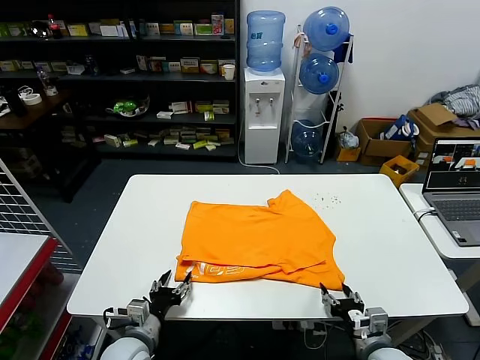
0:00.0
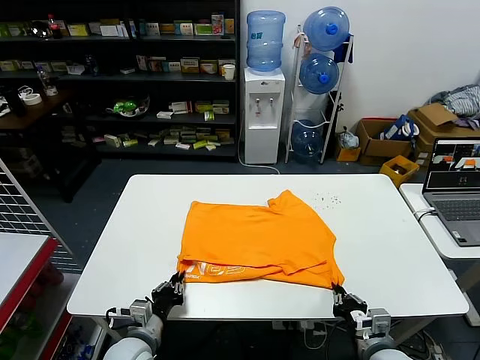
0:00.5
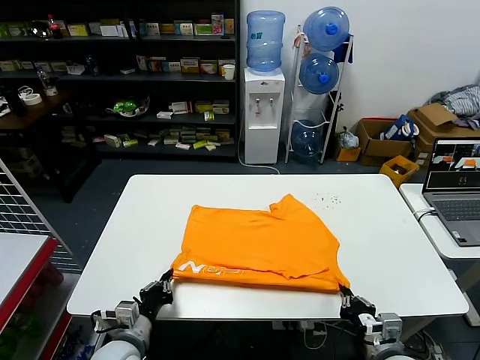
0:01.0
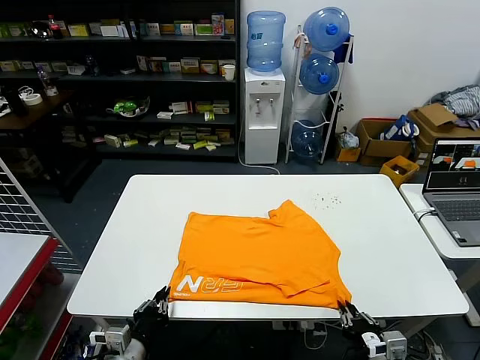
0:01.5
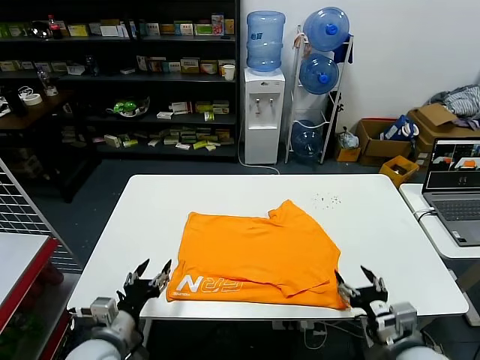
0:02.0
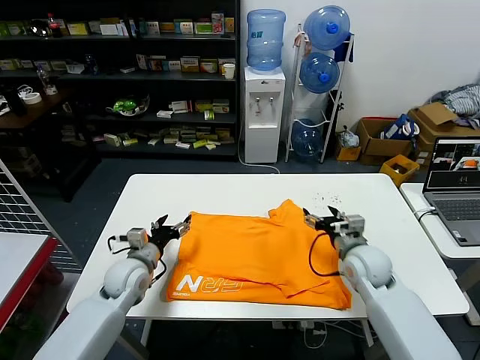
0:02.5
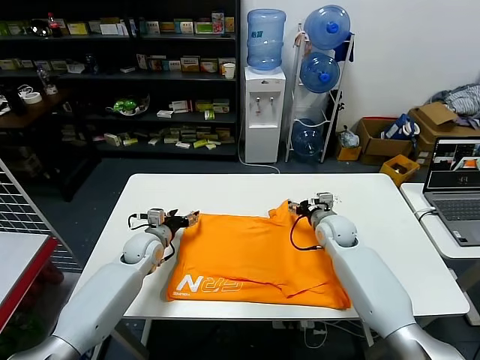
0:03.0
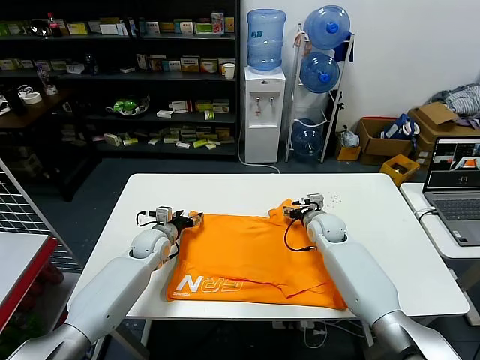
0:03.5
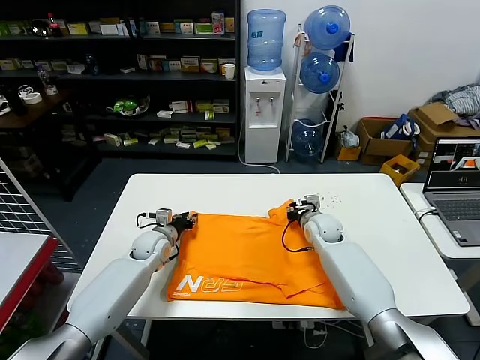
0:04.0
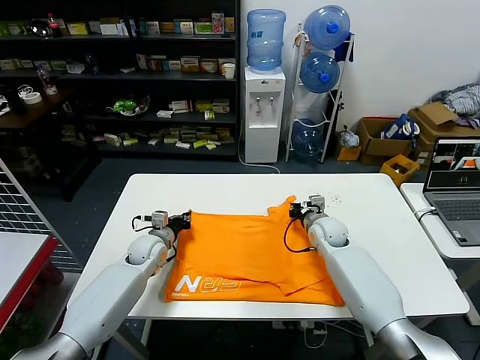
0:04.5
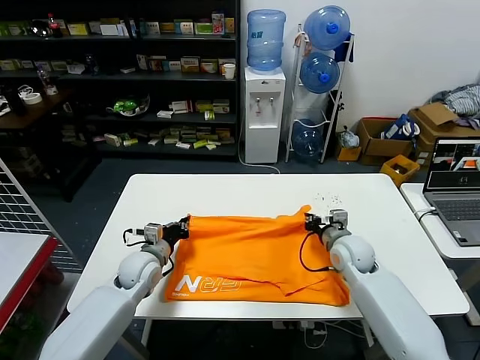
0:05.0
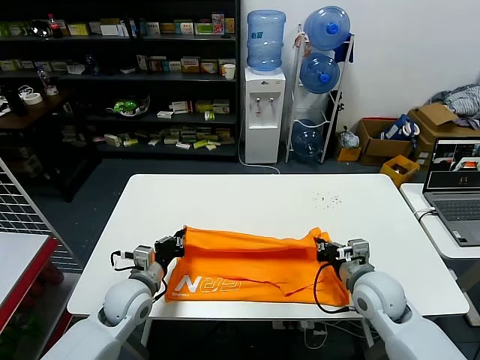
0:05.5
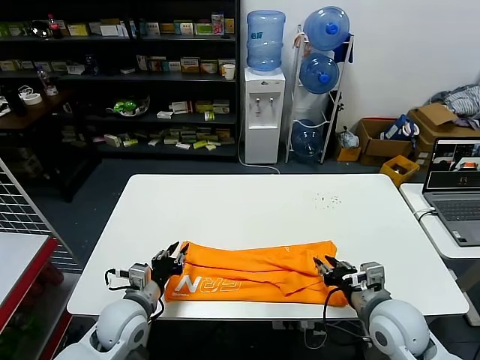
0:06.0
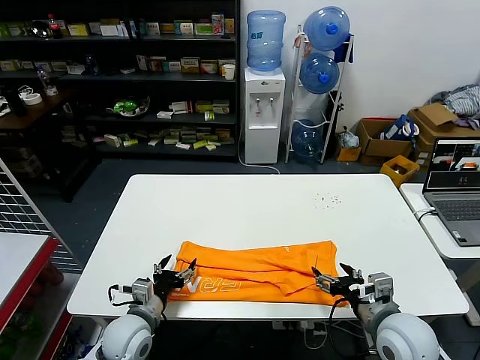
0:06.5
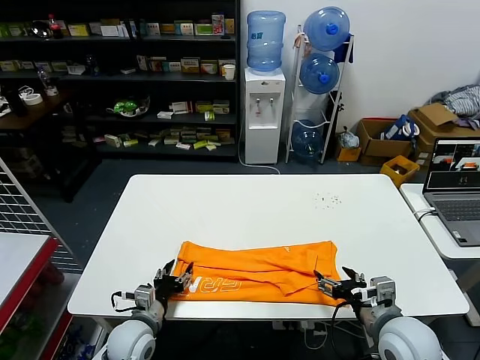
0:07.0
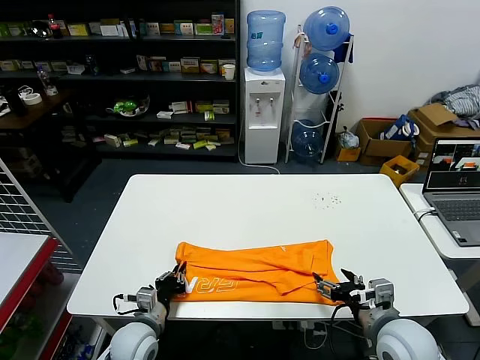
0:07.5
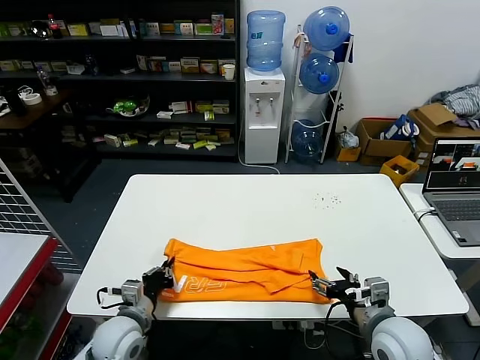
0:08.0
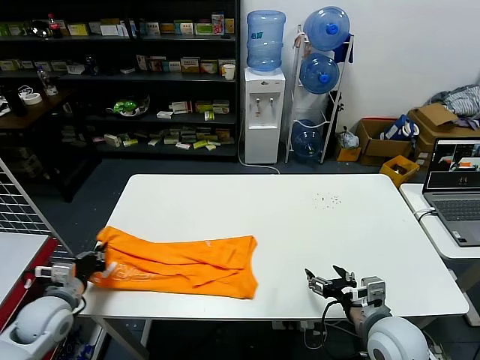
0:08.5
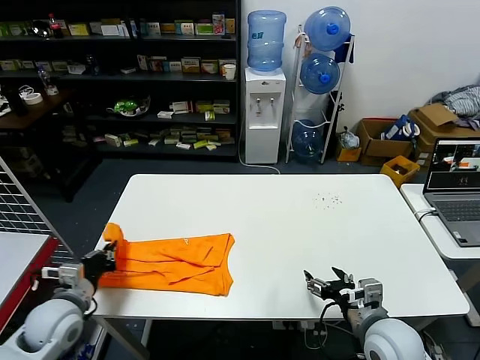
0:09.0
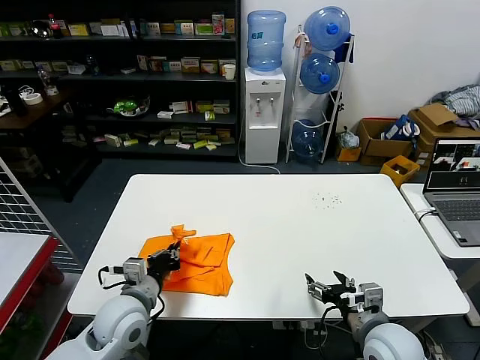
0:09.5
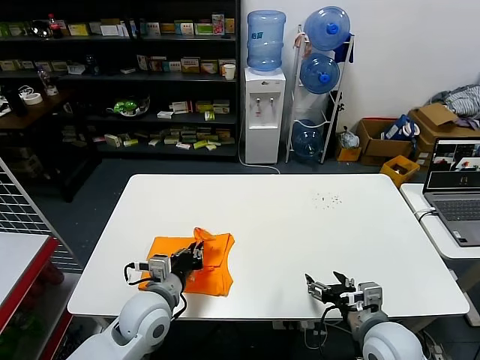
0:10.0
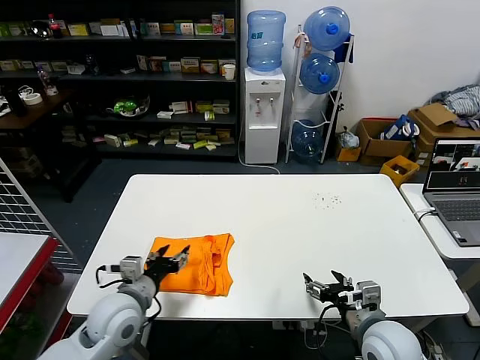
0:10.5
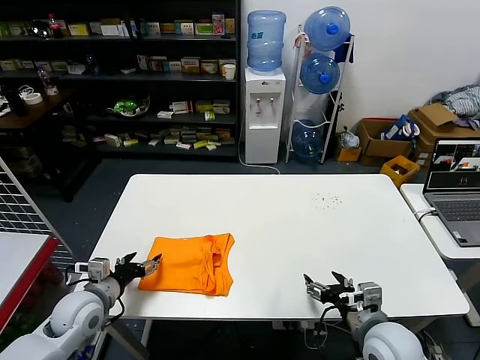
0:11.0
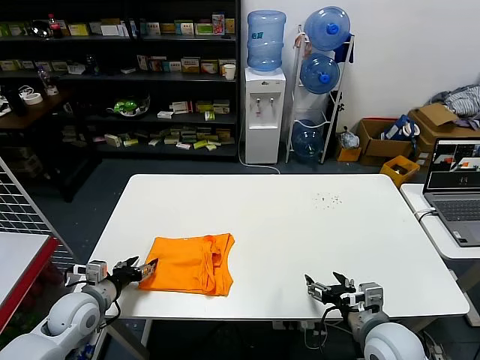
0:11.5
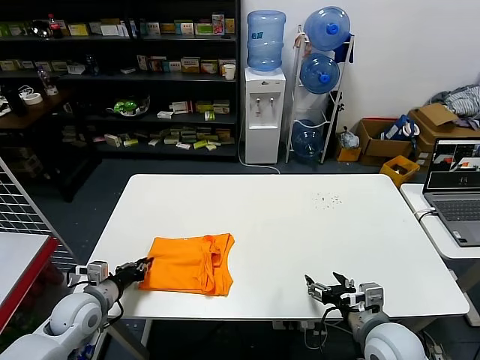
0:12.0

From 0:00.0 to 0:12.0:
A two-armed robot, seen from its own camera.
Task of the whole recording: fold and organize the clothes.
Step, from 0:02.0 to 0:04.0: use both grippers simultaneously to clamp the upper edge of the clothing fabric.
Step, from 0:04.5 to 0:05.5: use both grippers to drag the upper edge of the fabric backward and fold it over the lower edge.
Step, from 0:06.0 to 0:07.5: use the left gripper to clamp the left edge of the fabric.
Step, from 0:08.0 to 0:10.0: use the left gripper to drag the left edge of the fabric to the left and folds it over the right edge.
From 0:00.0 to 0:02.0: The grippers both shift upward by approximately 10 cm. The left gripper closes, then opens again, while the right gripper closes, then opens again.
From 0:02.0 to 0:04.0: Both grippers travel together forward, some 30 cm. The right gripper closes.
From 0:04.0 to 0:06.0: The two grippers go about 25 cm backward. The left gripper closes and opens again.
From 0:06.0 to 0:08.0: The left gripper closes, while the right gripper opens.
From 0:08.0 to 0:10.0: The left gripper shifts some 5 cm upward, and moves some 15 cm to the left and comes back.
From 0:10.0 to 0:12.0: The left gripper goes some 20 cm to the left, and opens, then closes again.

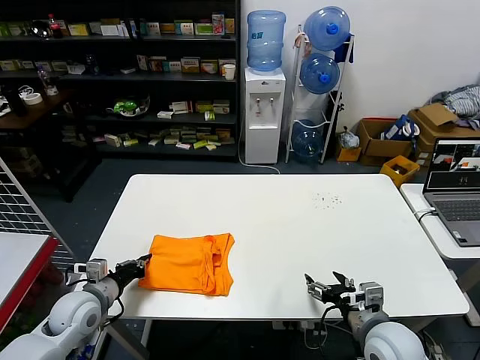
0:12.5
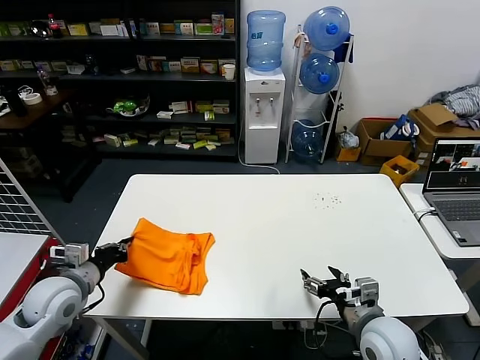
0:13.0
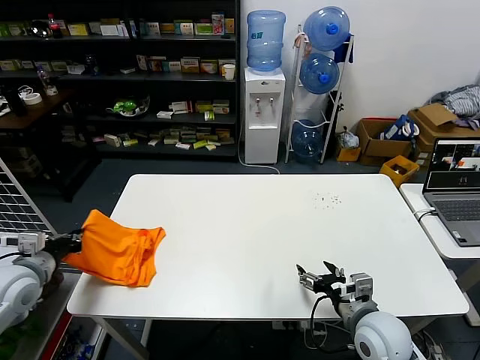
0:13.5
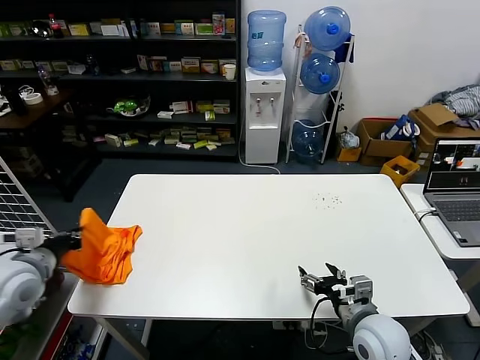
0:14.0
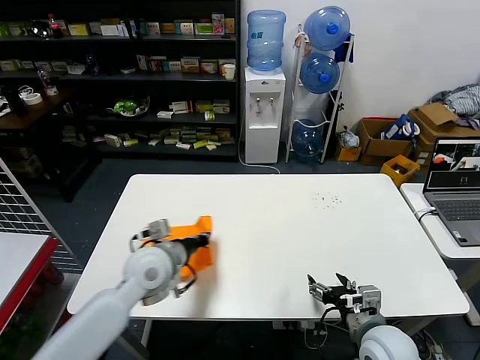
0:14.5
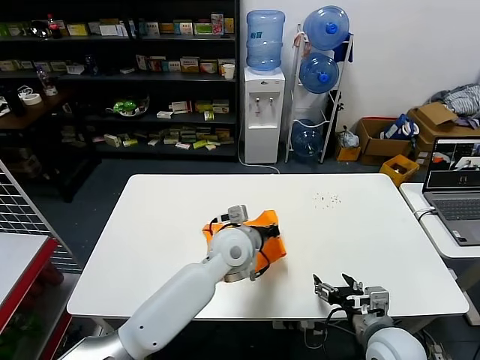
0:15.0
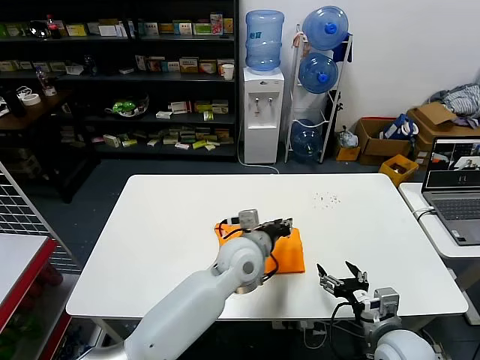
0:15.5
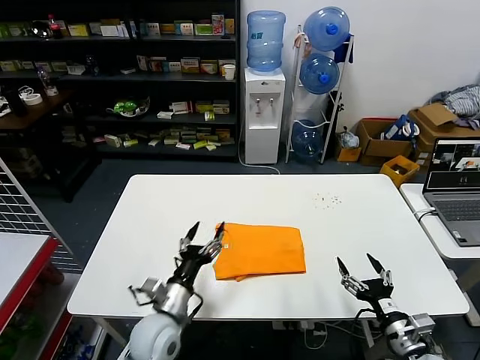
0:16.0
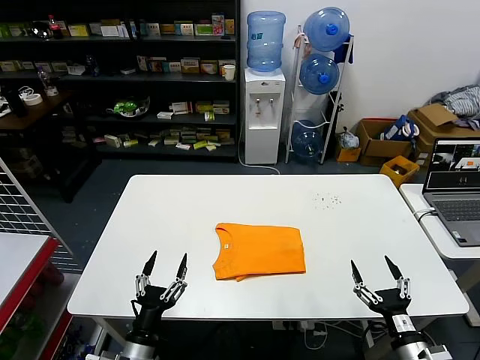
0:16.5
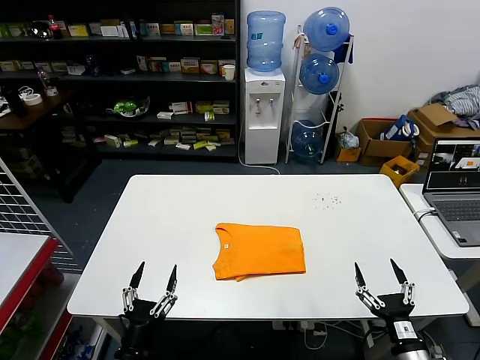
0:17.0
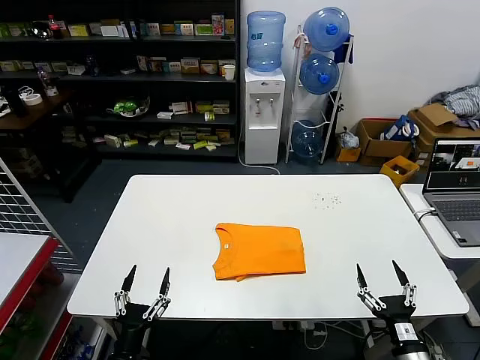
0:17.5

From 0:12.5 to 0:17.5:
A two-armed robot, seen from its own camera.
Task of the whole recording: fold and organize the clothes.
Step, from 0:12.5 to 0:15.0: Flip the folded clothes over with left gripper.
From 0:12.5 to 0:15.0: The left gripper goes about 30 cm to the right.
From 0:15.0 to 0:17.5: The right gripper is displaced backward, downward and to the right by some 15 cm, while the left gripper shifts some 40 cm backward, to the left and downward, and opens its fingers.

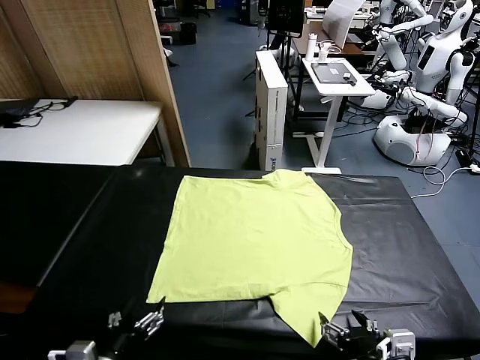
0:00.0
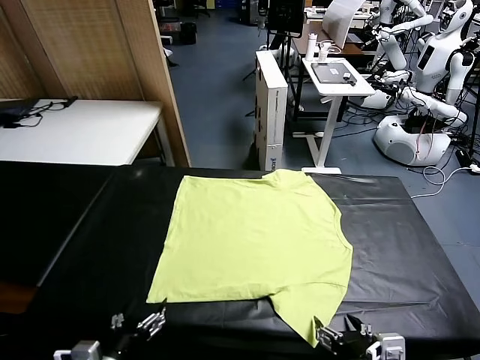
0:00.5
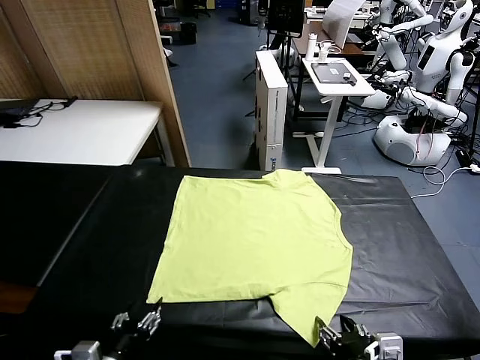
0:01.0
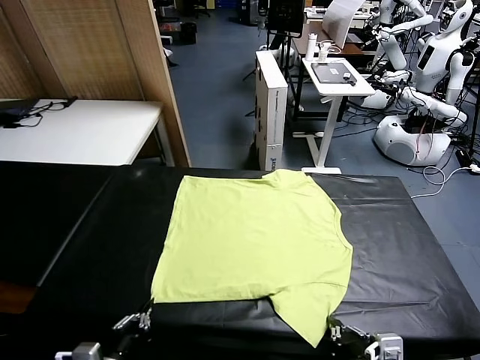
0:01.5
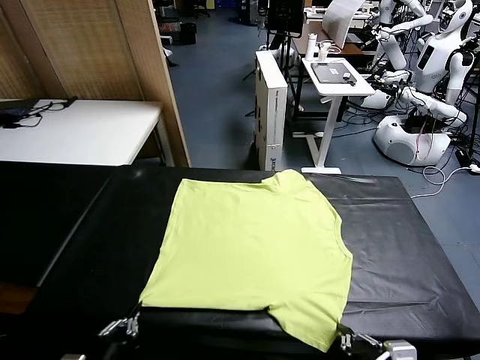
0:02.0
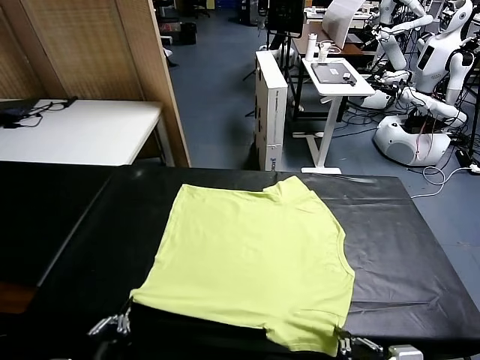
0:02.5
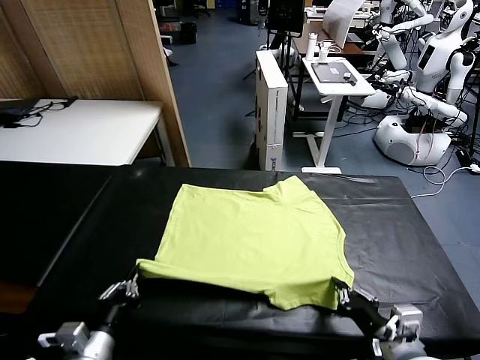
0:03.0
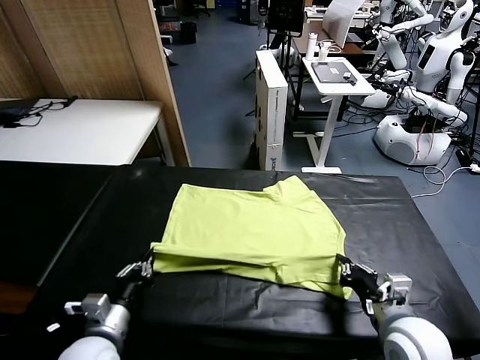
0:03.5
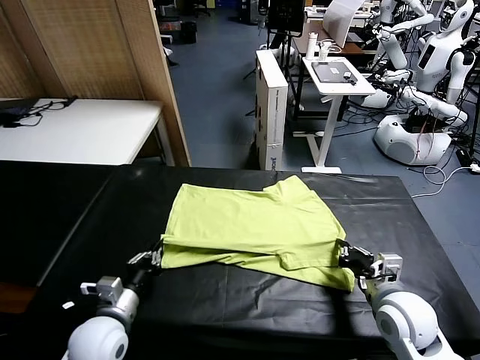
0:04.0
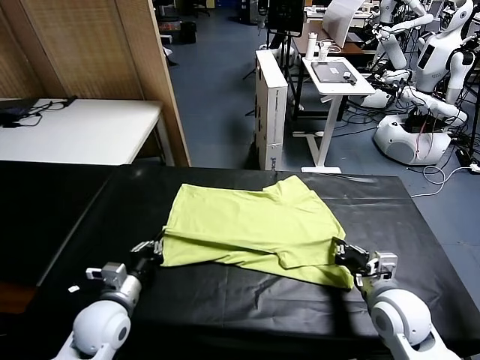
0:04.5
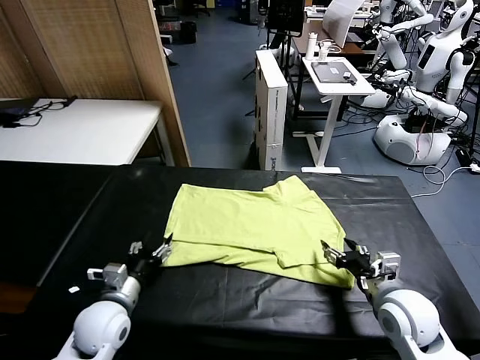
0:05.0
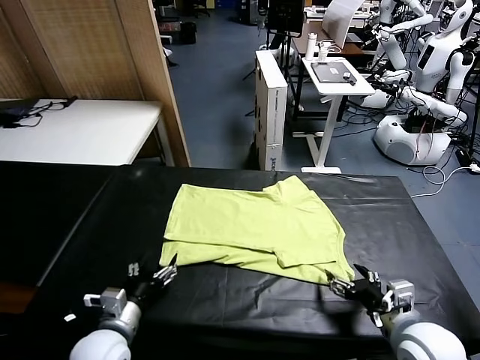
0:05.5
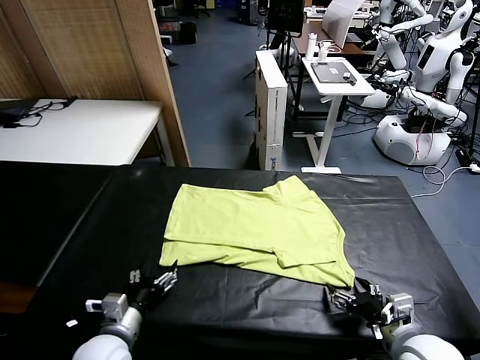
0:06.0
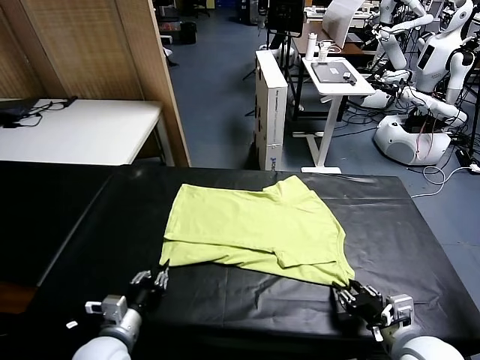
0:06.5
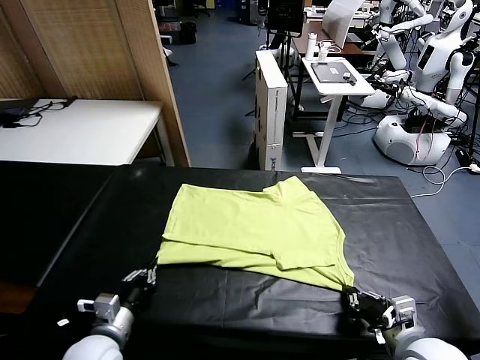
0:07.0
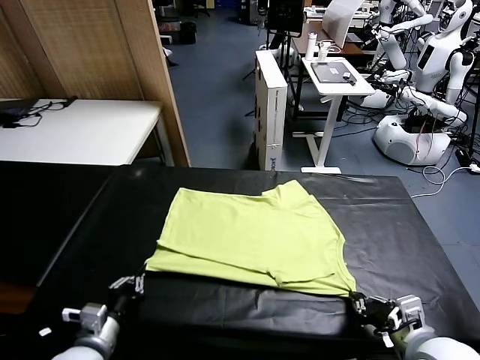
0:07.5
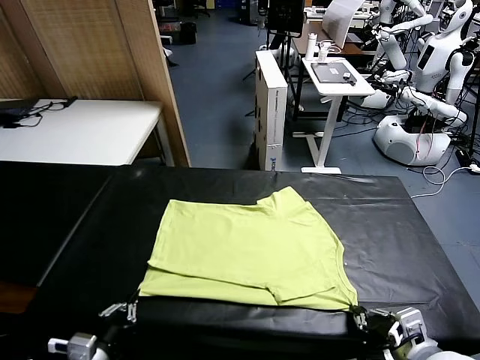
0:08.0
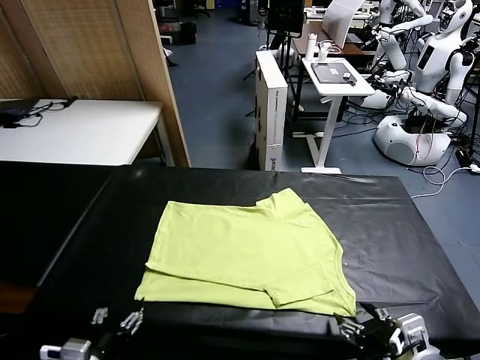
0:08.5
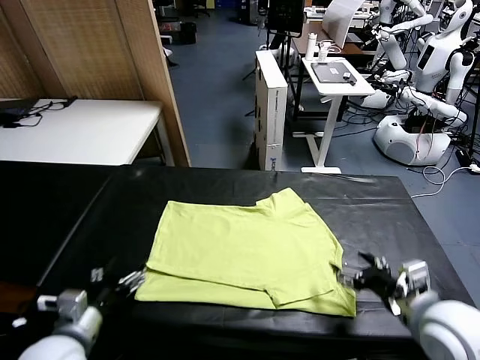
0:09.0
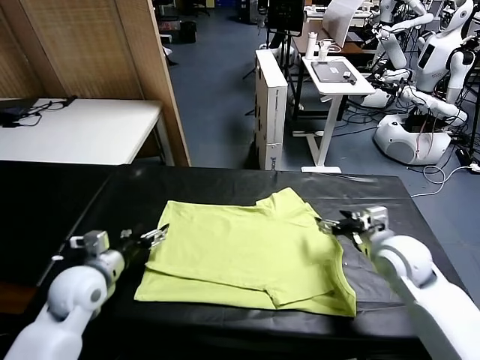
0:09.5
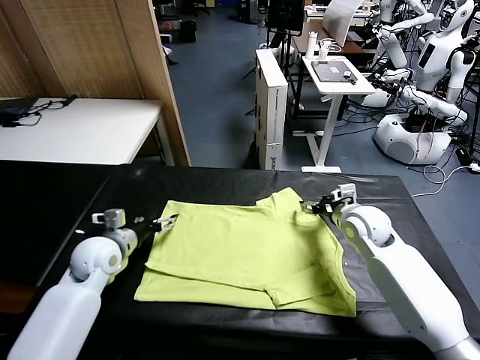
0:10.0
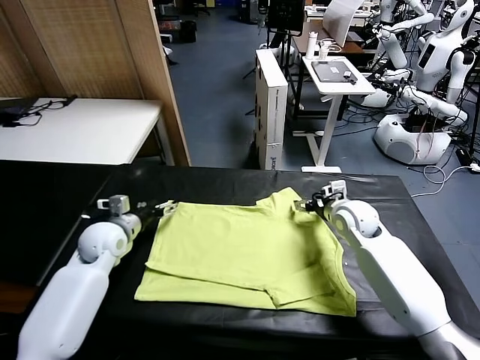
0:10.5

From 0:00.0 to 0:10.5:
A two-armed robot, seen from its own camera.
Task of the whole recording: fold and organize the clothes.
Step, from 0:00.0 to 0:01.5: use both grippers simultaneously to clamp the lower edge of the clothing fabric.
Step, from 0:02.0 to 0:04.5: use both grippers to drag the lower edge of the fabric forward and fold it over the upper edge.
Step, from 0:05.5 to 0:08.5: Drag the clothes downward with both gripper.
From 0:02.0 to 0:04.0: The two grippers go approximately 15 cm forward.
From 0:04.0 to 0:06.5: The left gripper opens, then closes again; the right gripper goes some 10 cm backward, and opens and closes again.
From 0:06.5 to 0:08.5: The left gripper moves backward, about 10 cm, and opens up. The right gripper goes about 5 cm upward, and opens its fingers.
From 0:08.5 to 0:10.5: The two grippers go about 35 cm forward.
